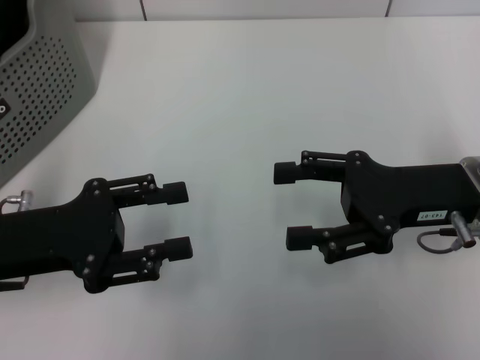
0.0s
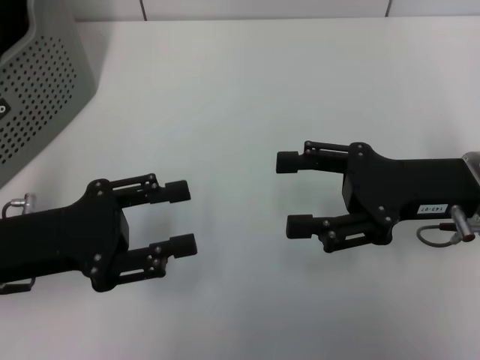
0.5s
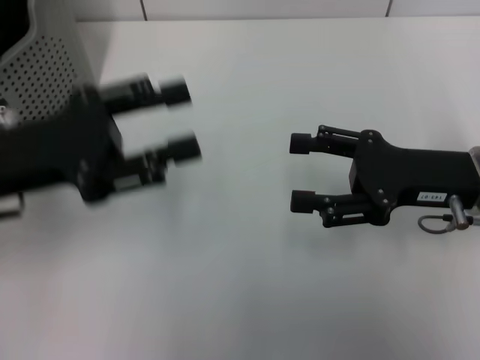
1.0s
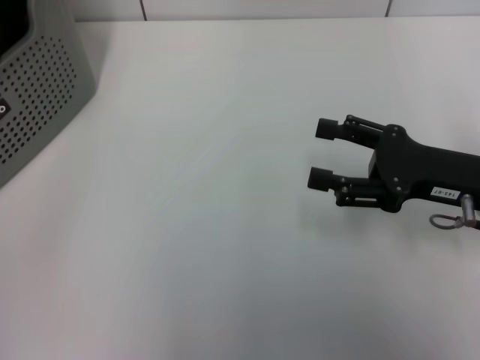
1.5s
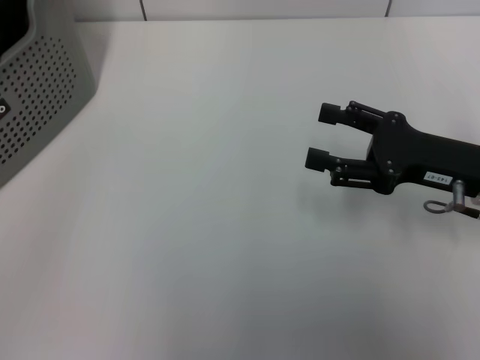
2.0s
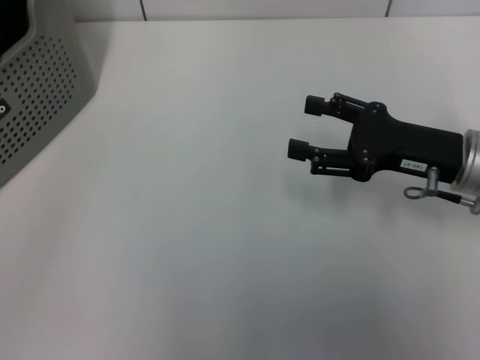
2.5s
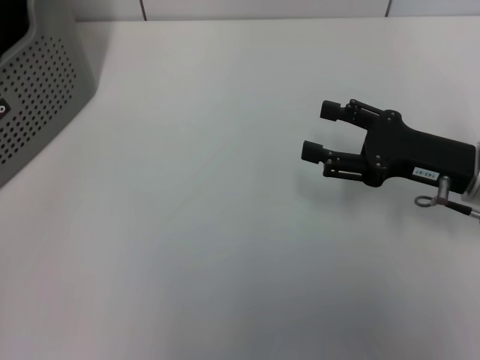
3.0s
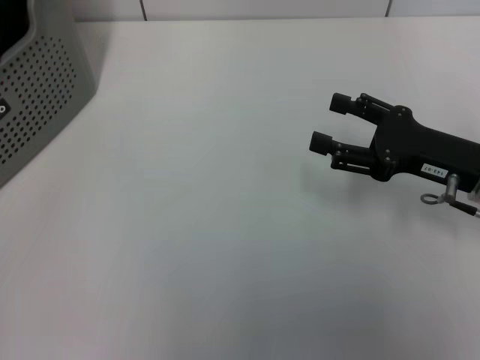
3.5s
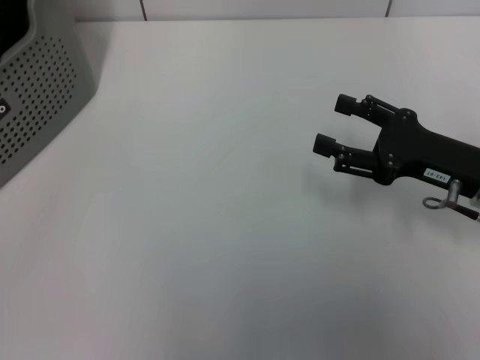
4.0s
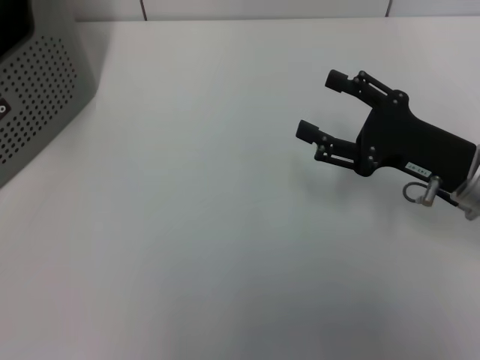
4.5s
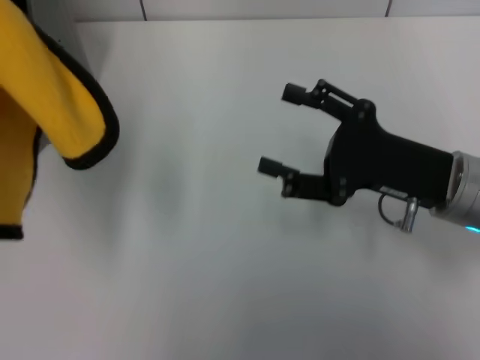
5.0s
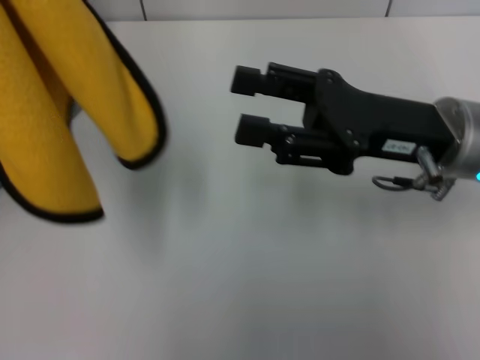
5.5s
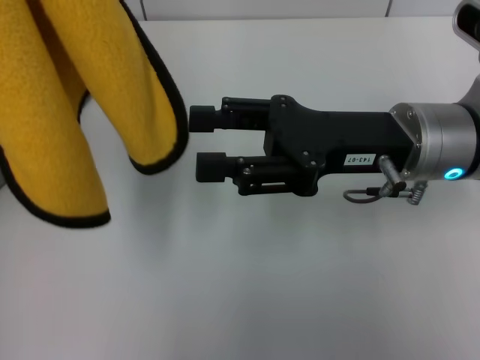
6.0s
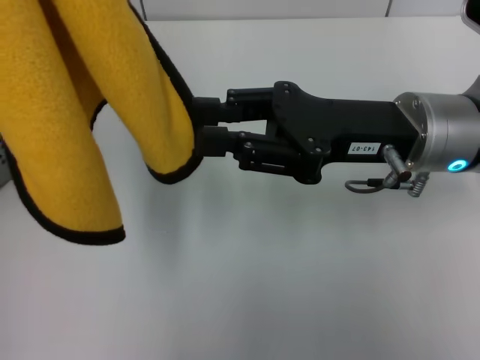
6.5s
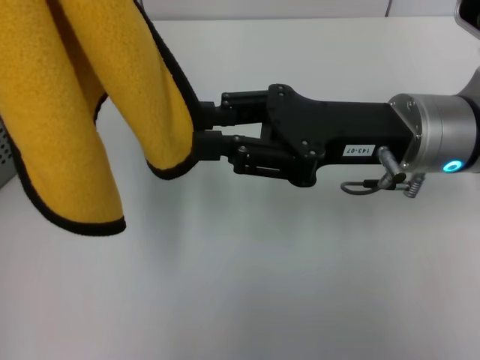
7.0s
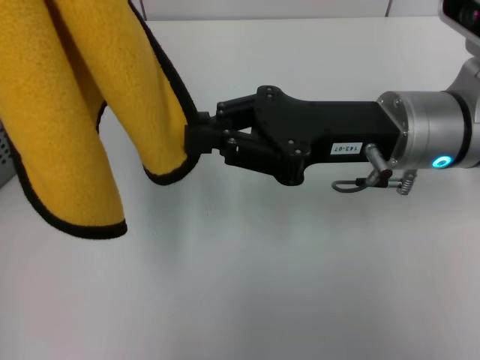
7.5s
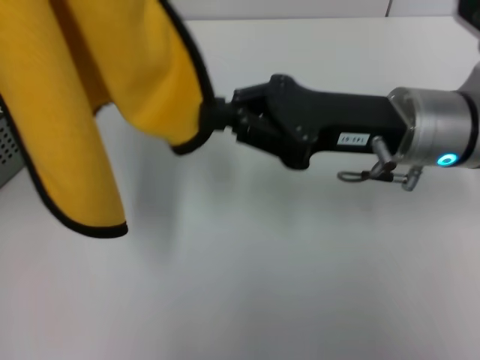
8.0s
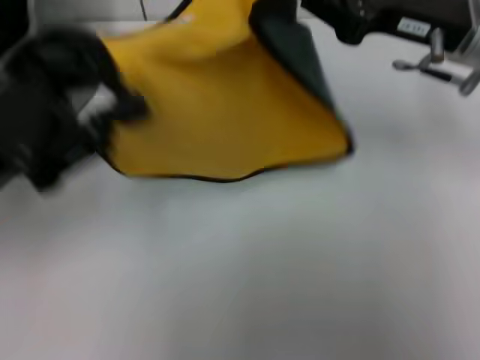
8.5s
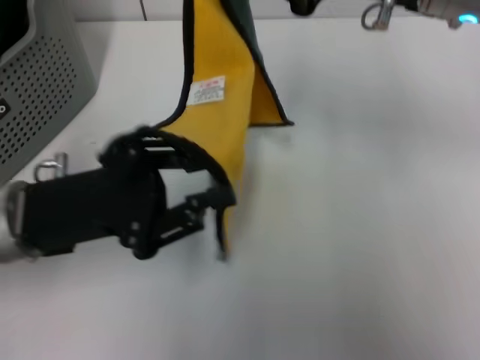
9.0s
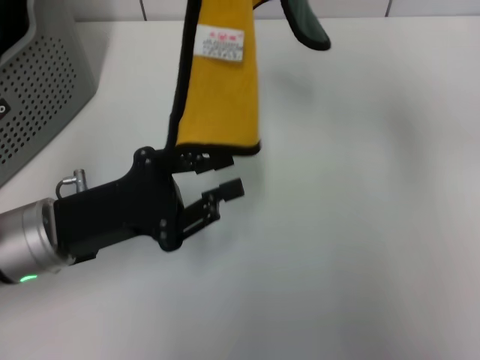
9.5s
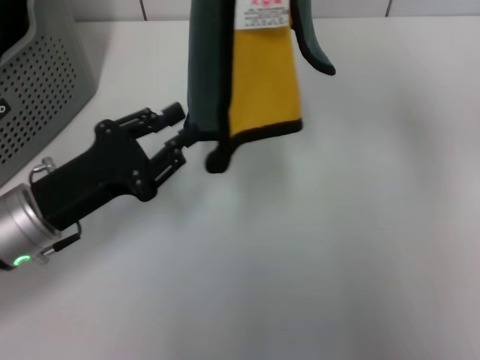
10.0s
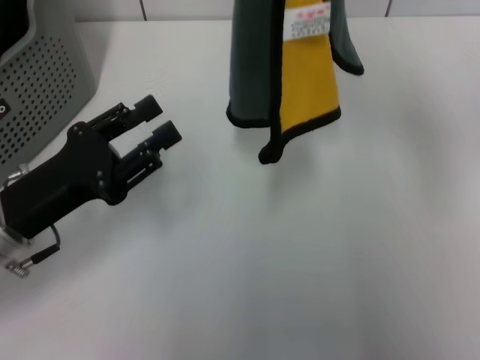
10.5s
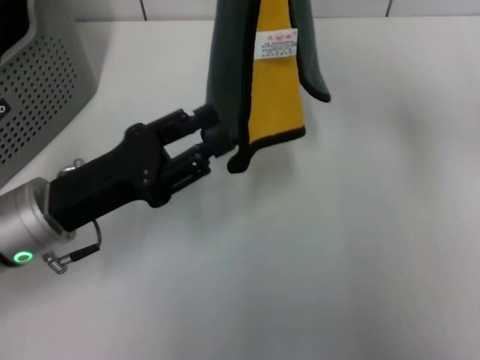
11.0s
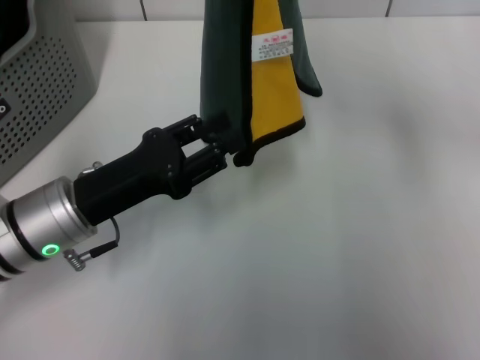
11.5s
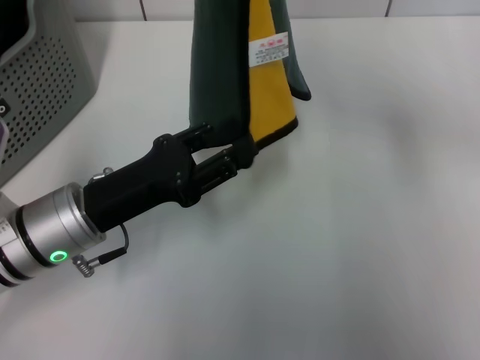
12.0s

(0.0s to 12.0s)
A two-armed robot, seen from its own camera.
Task of the whole recording: pick up the towel from the storage box and lay it flat on the table.
Step, 0.0s - 3.5s: Pick up a towel with the left gripper.
Step, 4.0s - 7.5s: Spread the towel flat with the left gripper.
0.0s - 2.0s: The left gripper goes about 20 cm upward and to the left.
4.0s - 6.0s: The left gripper is displaced to the right by approximately 15 cm. Meanwhile the right gripper shifts some 10 cm to the left and upward.
6.0s - 8.0s: The right gripper closes.
8.0s - 10.0s: The left gripper moves downward, some 20 cm, and opens. Meanwhile the right gripper goes approximately 15 cm upward.
10.0s - 12.0s: The right gripper is displaced downward by approximately 5 cm.

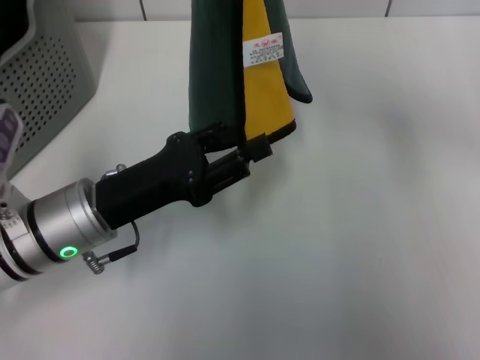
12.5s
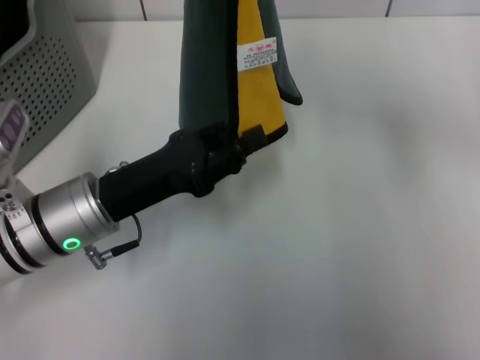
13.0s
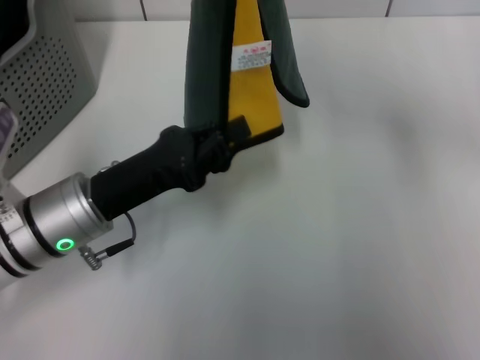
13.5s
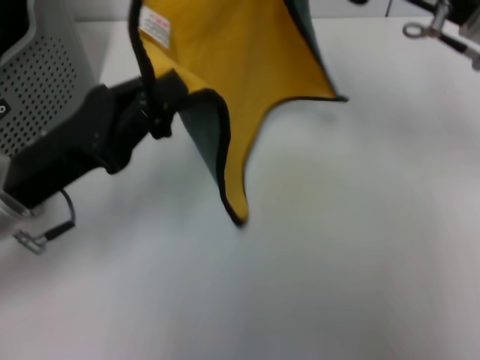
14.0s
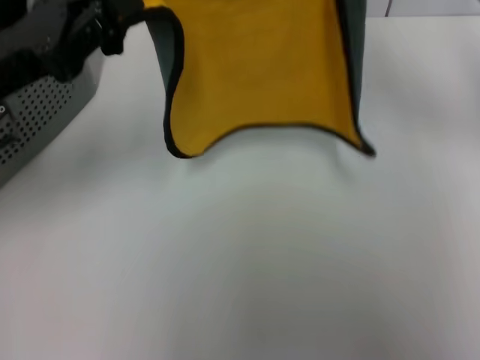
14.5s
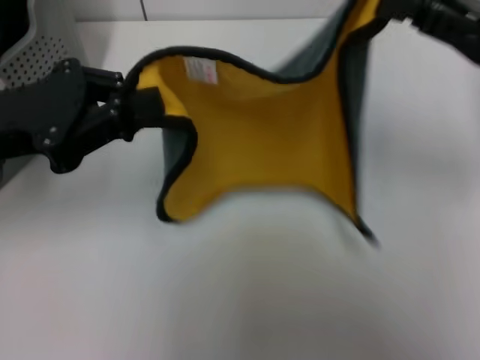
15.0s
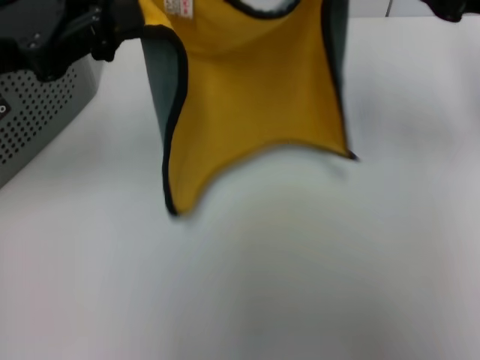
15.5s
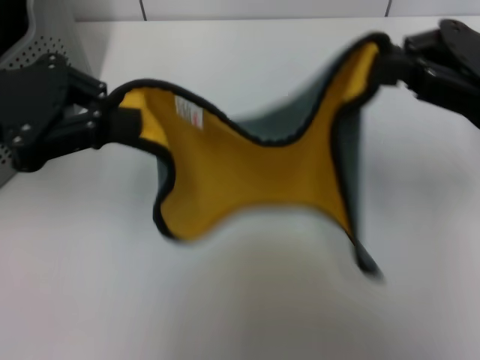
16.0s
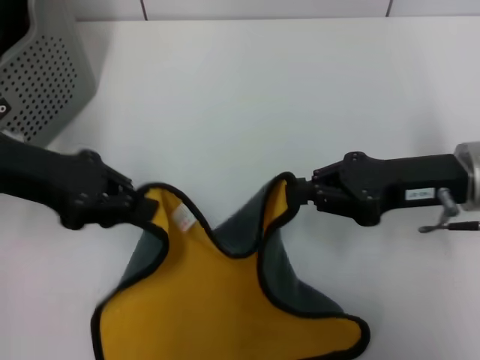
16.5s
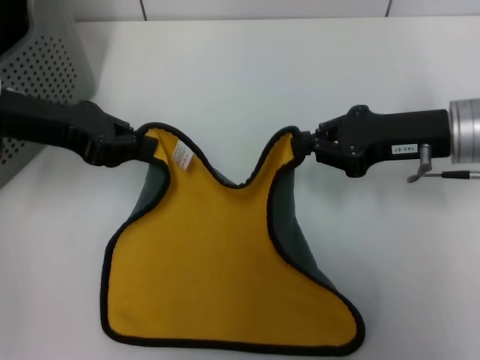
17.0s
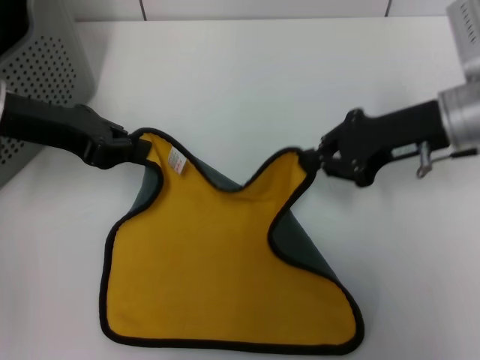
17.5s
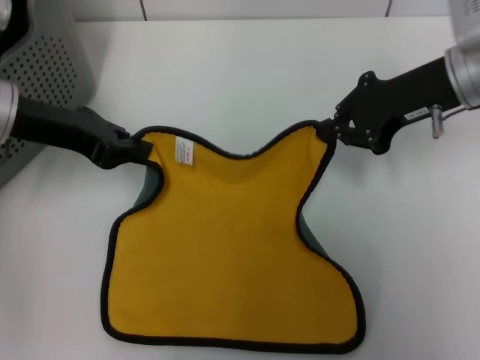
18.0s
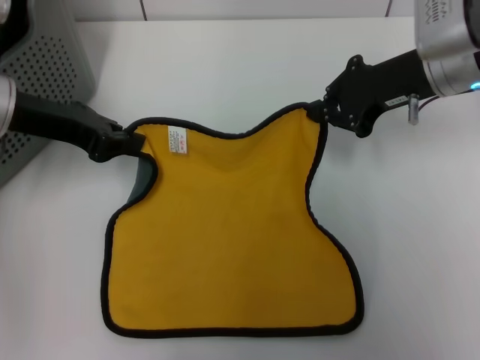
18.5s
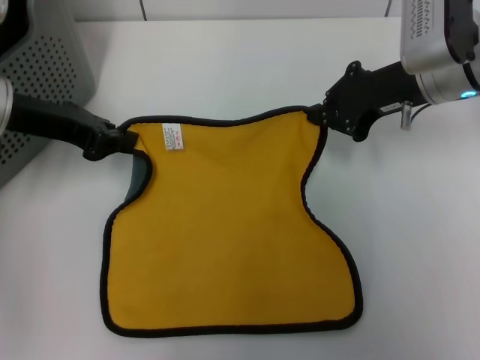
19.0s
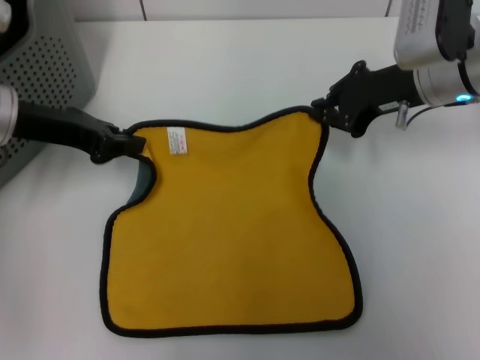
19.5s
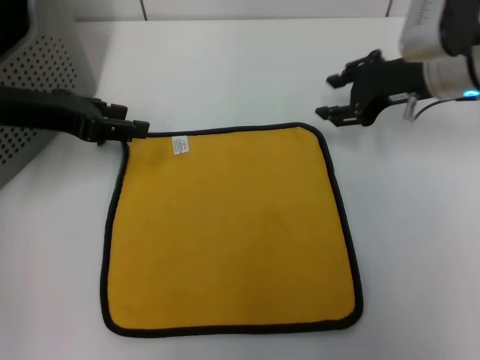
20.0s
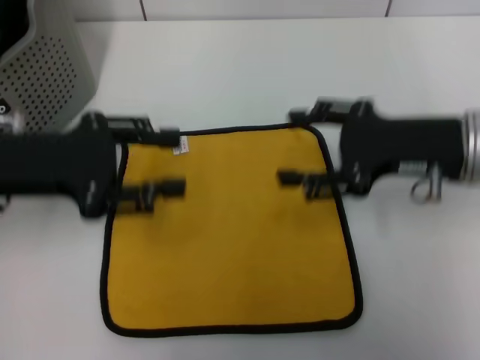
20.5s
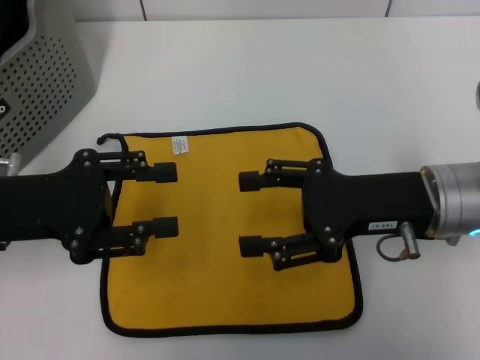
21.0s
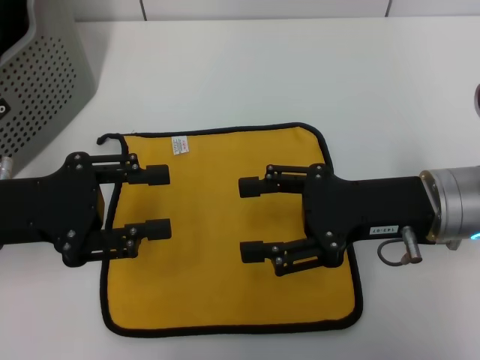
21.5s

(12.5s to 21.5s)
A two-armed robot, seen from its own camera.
Task of the whole recording: pick up the towel from the storage box and lay it flat on the table.
Step, 12.5s - 19.5s: Spread the towel flat with the right gripper.
12.5s - 14.5s: The right gripper heads to the right, covering some 10 cm; the left gripper is displaced upward and to the left by some 10 cm, and closes its fingers.
14.5s - 17.0s: The right gripper shifts approximately 10 cm downward.
17.0s - 19.5s: The right gripper travels forward by roughly 5 cm.
19.5s - 21.5s: The two grippers go some 10 cm backward. The left gripper opens up. Meanwhile the right gripper opens its fingers.
